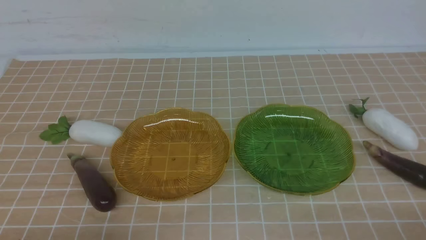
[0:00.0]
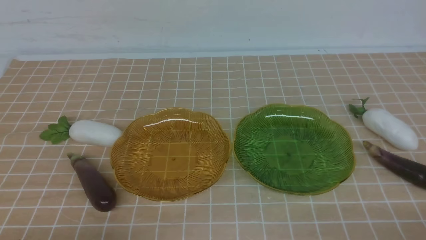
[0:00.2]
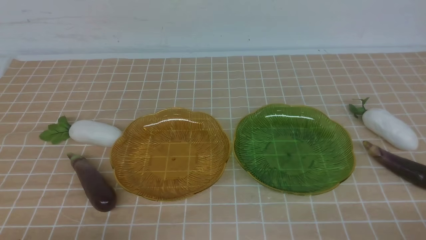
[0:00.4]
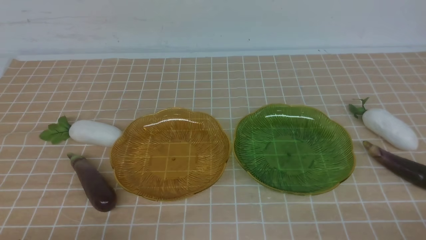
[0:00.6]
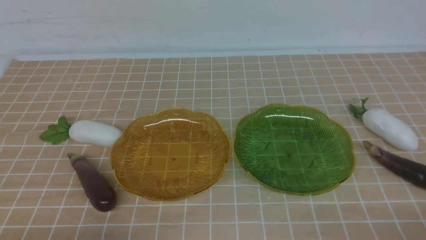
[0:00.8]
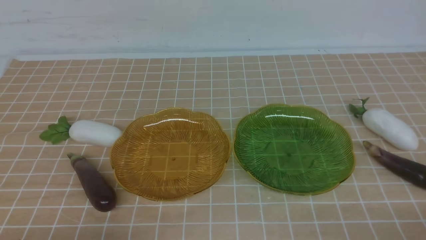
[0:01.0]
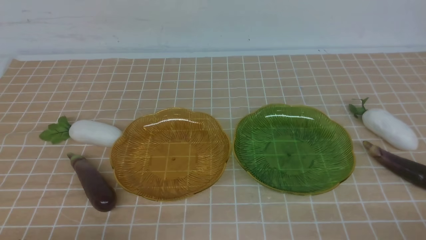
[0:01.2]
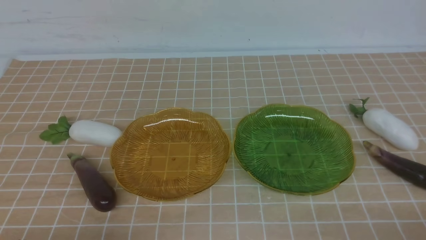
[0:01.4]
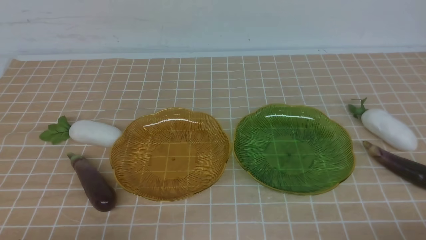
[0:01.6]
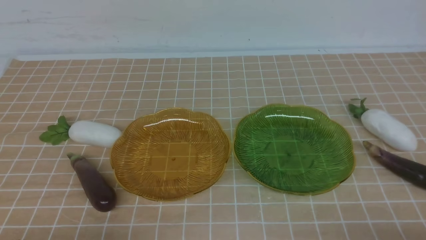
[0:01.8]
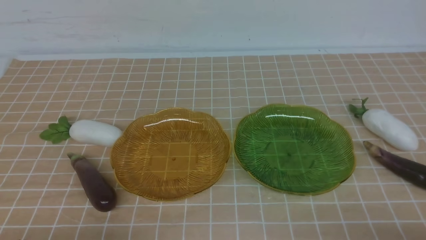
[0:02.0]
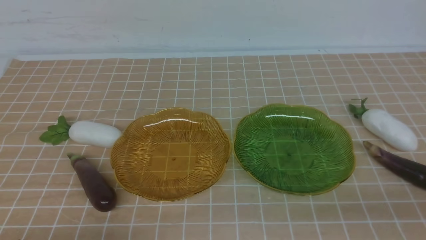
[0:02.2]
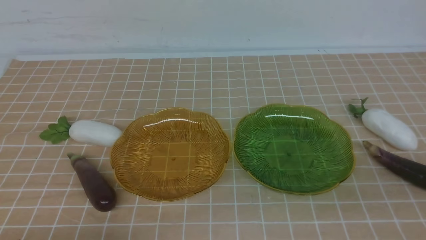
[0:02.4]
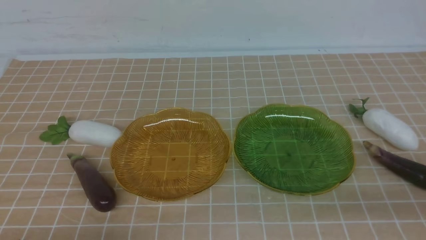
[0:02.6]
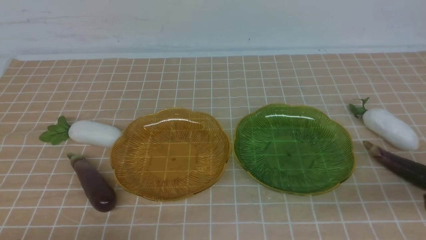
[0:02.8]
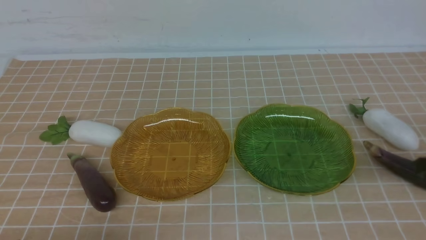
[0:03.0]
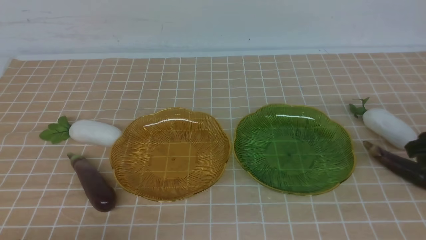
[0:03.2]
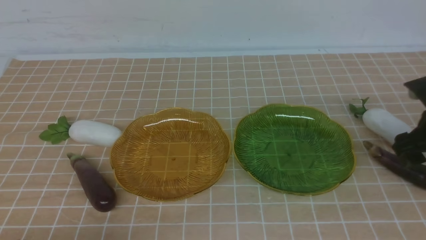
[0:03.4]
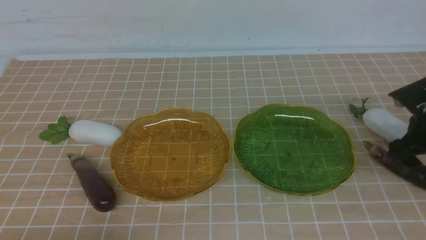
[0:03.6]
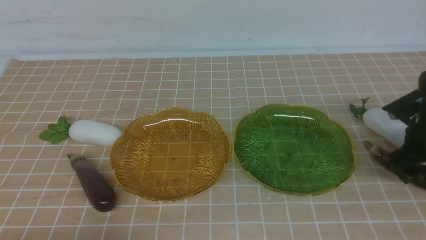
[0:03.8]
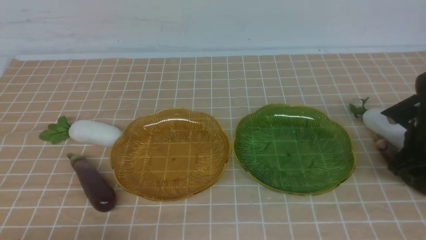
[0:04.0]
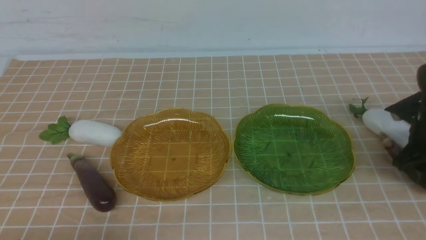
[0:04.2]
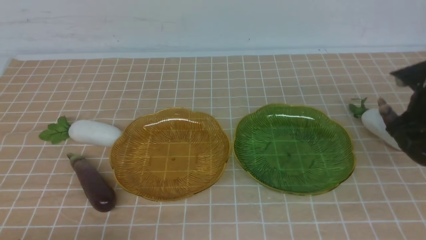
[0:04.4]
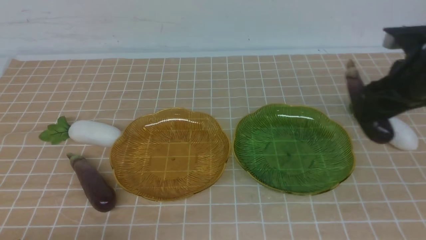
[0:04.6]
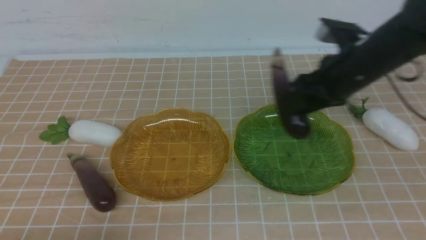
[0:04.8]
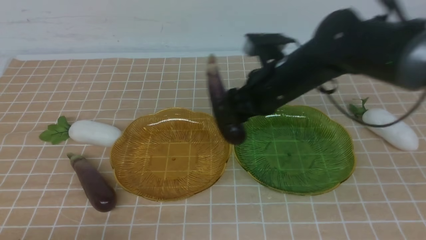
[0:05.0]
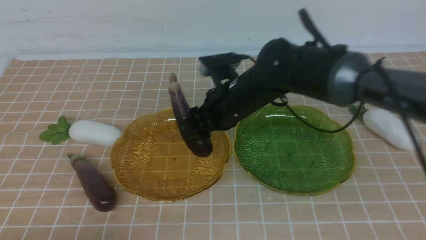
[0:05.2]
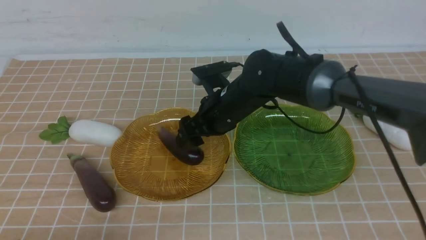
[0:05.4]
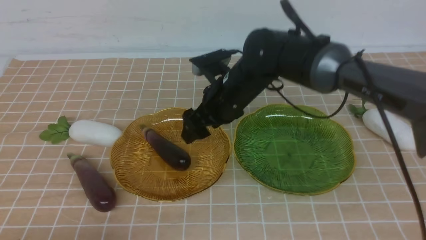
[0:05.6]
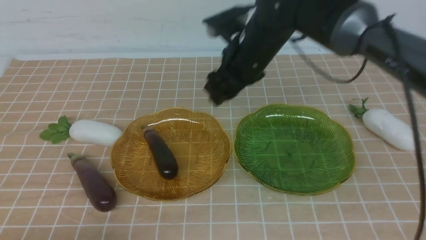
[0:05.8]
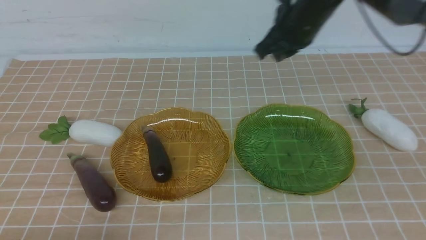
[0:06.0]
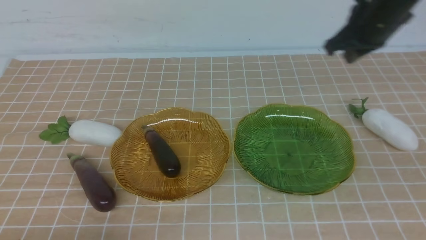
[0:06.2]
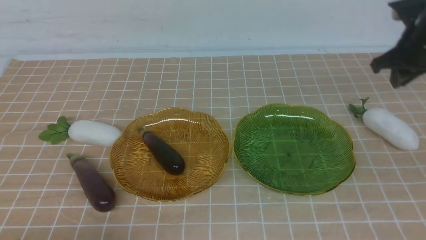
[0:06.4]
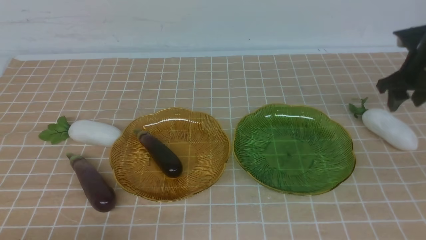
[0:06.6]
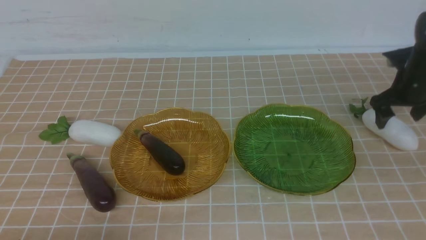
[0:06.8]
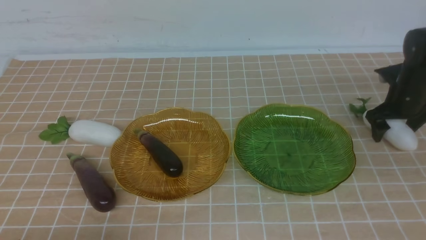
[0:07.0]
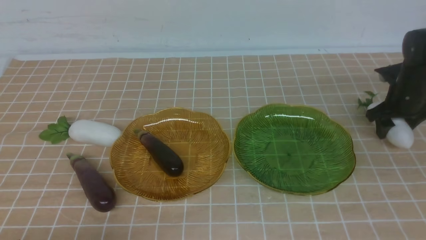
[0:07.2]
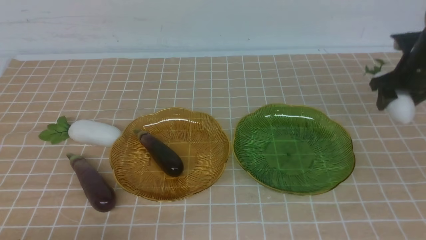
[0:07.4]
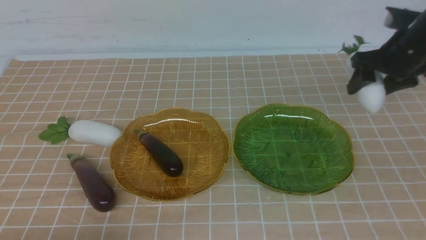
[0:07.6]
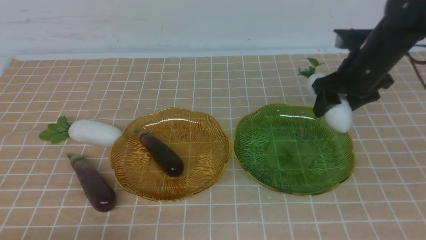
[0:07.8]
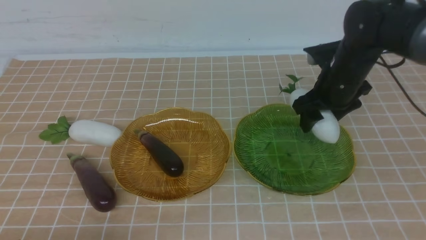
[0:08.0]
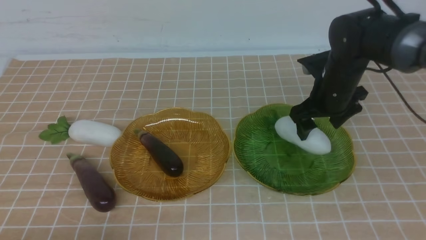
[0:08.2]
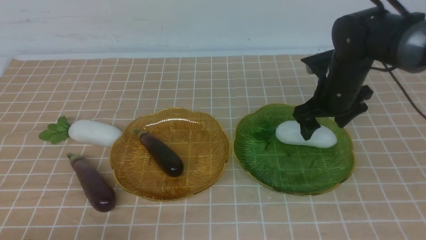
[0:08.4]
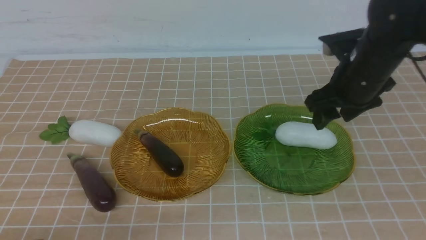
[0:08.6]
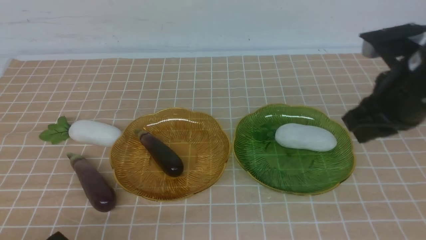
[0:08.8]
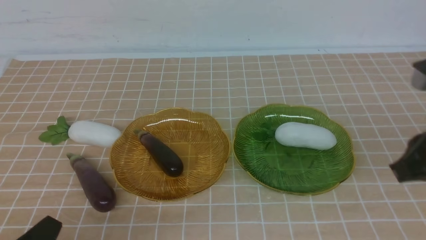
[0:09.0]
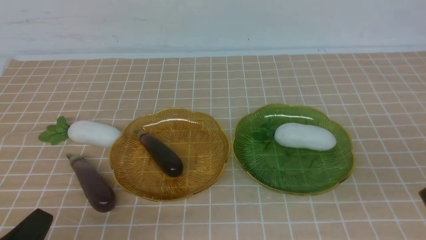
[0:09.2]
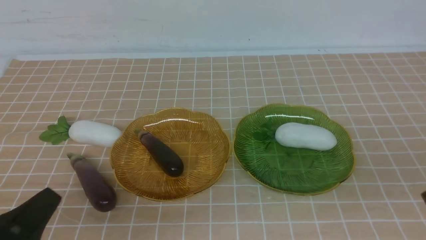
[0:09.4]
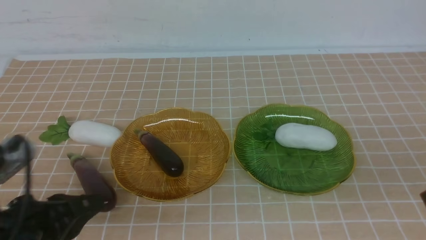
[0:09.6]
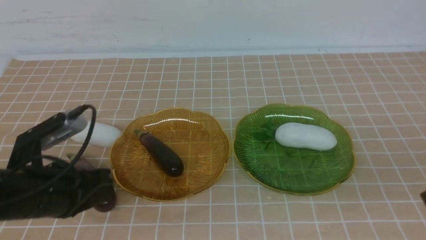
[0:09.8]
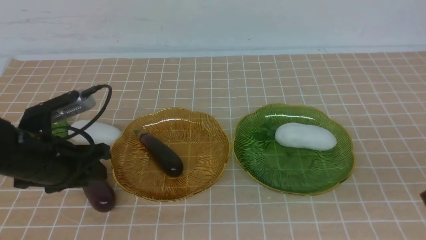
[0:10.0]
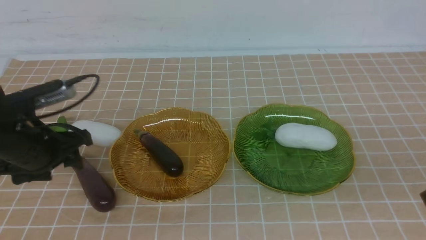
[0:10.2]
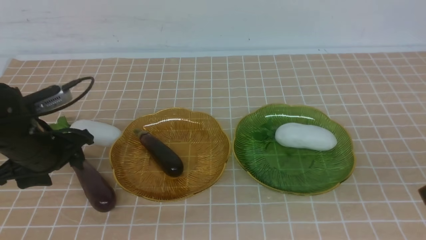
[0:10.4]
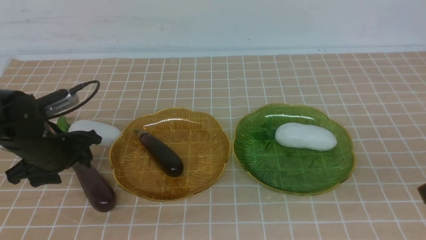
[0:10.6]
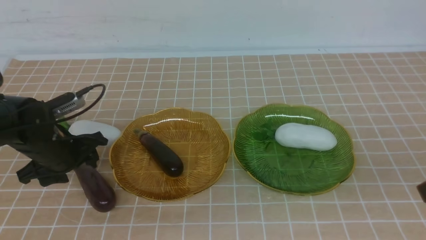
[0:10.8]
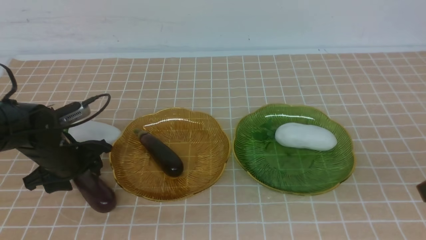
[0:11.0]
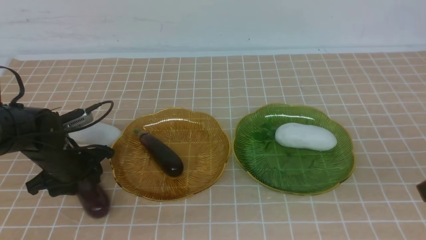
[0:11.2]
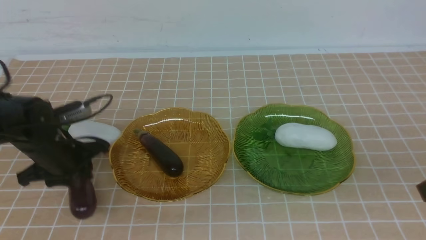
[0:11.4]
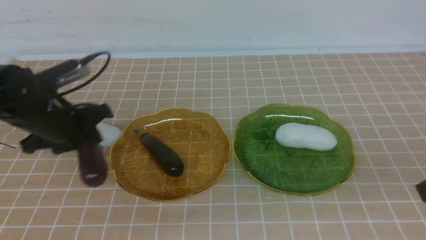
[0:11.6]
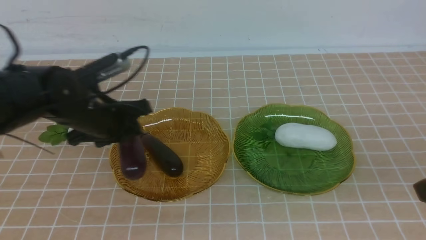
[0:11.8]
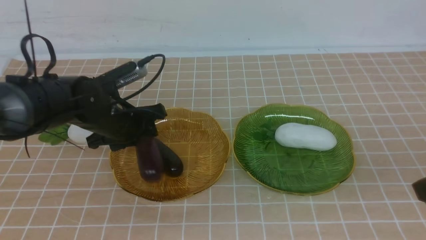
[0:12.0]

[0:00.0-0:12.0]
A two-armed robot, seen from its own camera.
Step, 0:00.0 to 0:05.6: use the right arm to grab an eggplant and put it into the left plate.
Step, 0:05.8 to 0:08.4: use the right arm to grab a radish and put it into the right plate.
0:01.6 to 0:03.0: The right gripper travels forward and upward by approximately 20 cm.
0:03.0 to 0:04.4: The right gripper goes some 15 cm forward, and opens its fingers.
0:04.4 to 0:06.0: The right gripper heads forward and upward, covering roughly 10 cm, reaches roughly 30 cm to the left, then returns, and closes its fingers.
0:06.0 to 0:07.6: The right gripper travels downward and back again, approximately 15 cm each way, and opens its fingers.
0:07.6 to 0:09.0: The right gripper goes roughly 20 cm backward, and closes.
0:09.0 to 0:10.4: The right gripper shifts some 5 cm backward. The left gripper is displaced forward by approximately 25 cm, and opens.
0:10.4 to 0:12.0: The left gripper moves to the right and forward, about 10 cm.

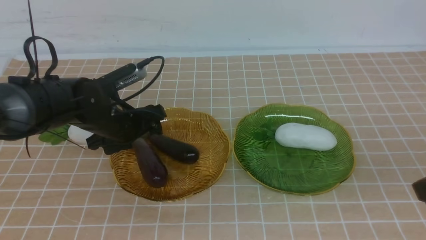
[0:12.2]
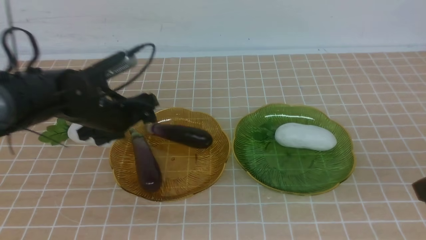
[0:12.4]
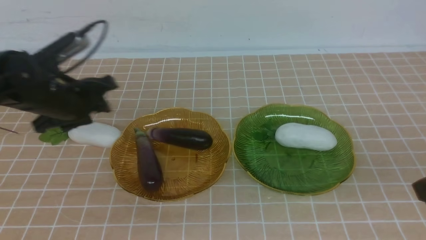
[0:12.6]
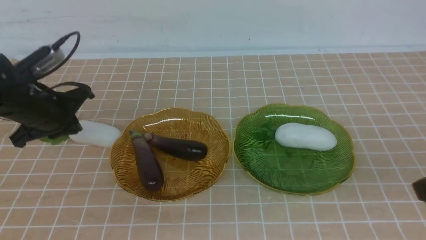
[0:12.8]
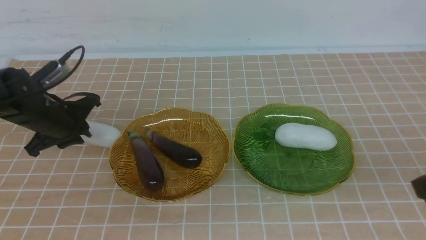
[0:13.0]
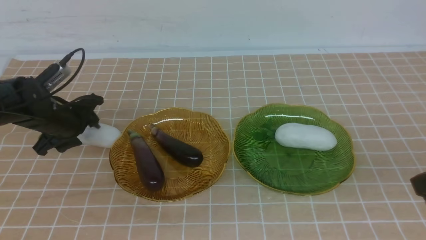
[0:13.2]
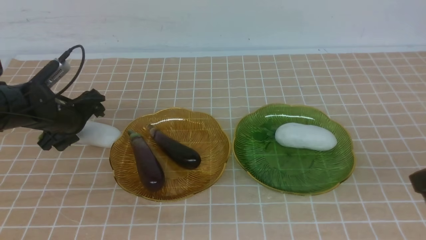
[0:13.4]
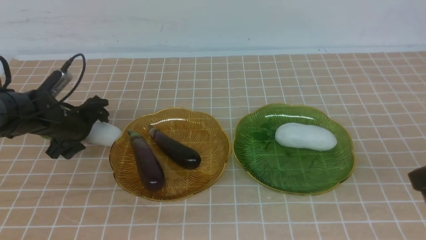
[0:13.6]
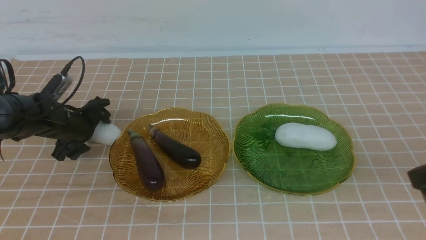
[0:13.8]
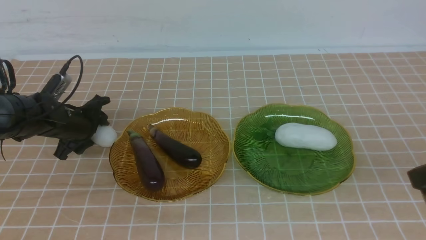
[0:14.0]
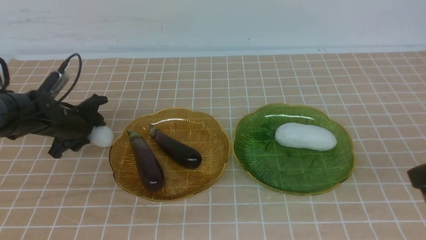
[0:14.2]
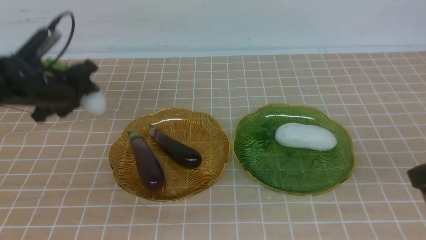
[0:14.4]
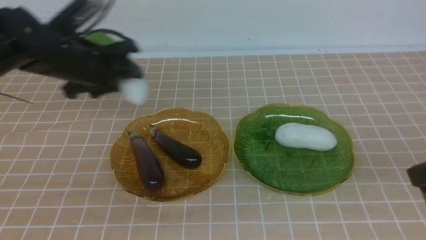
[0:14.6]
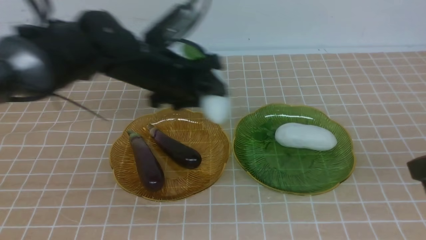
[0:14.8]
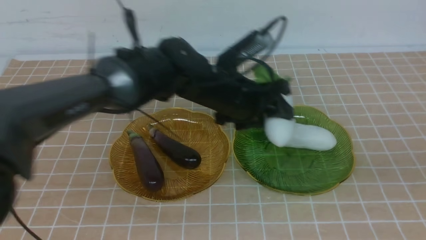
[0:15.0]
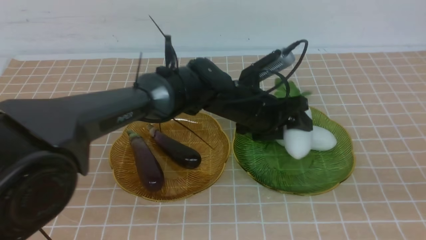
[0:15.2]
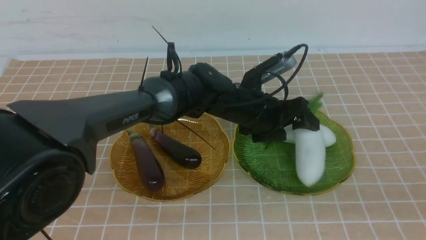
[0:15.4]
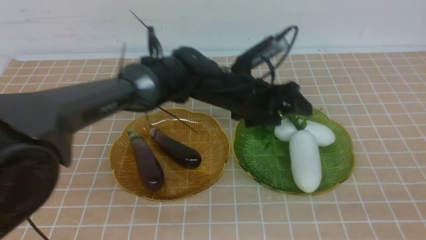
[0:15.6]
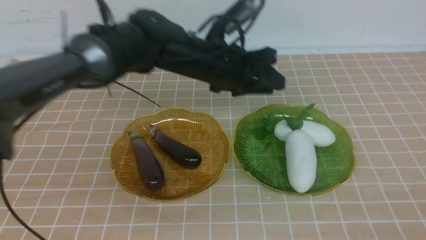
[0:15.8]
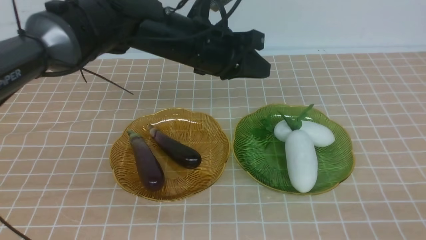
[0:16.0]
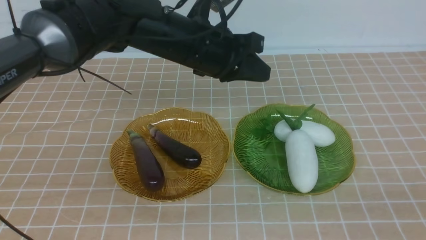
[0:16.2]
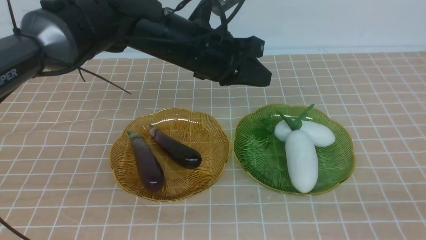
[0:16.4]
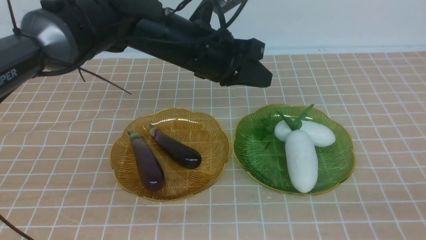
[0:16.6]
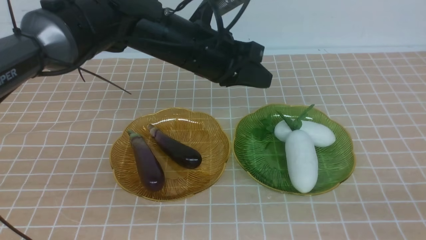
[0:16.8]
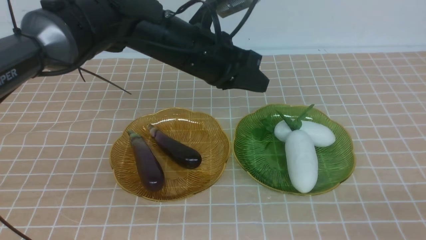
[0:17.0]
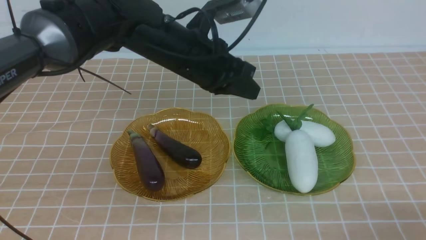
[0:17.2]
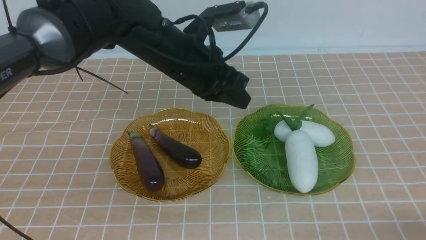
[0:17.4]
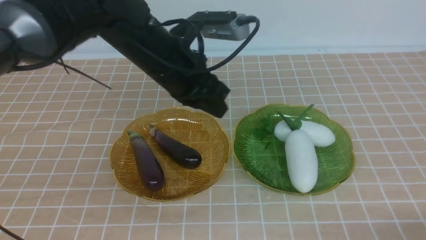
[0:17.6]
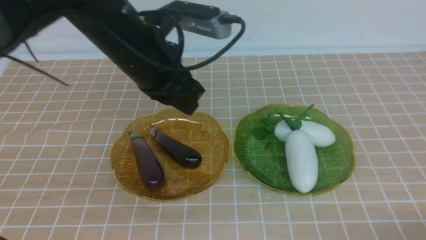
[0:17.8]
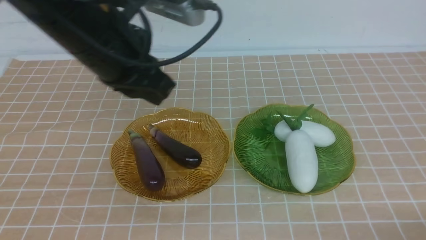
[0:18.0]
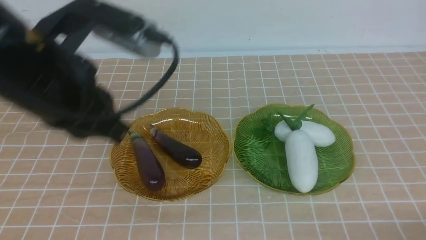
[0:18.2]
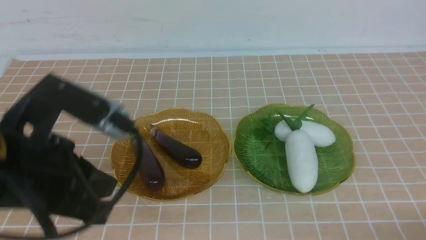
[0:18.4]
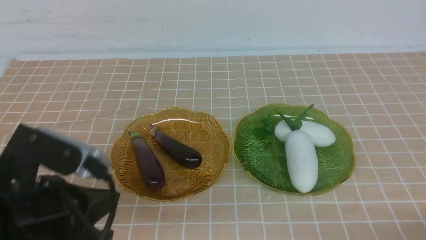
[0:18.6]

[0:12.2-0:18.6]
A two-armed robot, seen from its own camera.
Step, 0:12.6 to 0:15.6: use the left arm to grab a radish and put it into the right plate.
0:12.2 to 0:13.8: The left gripper goes approximately 10 cm to the left and downward, and closes, then reopens.
0:13.8 to 0:15.4: The left gripper goes some 30 cm to the right, and closes and opens again. Meanwhile the right gripper travels backward by some 15 cm.
0:15.4 to 0:17.0: The left gripper moves upward and to the left, approximately 10 cm, and closes its fingers; the right gripper heads downward, covering roughly 15 cm.
0:17.0 to 0:18.6: The left gripper travels backward and to the left by some 30 cm; the right gripper shifts approximately 5 cm downward.
